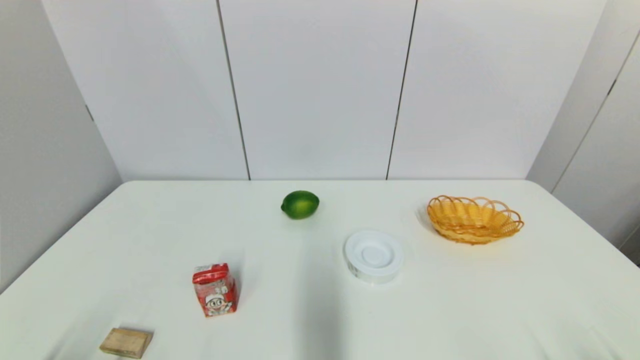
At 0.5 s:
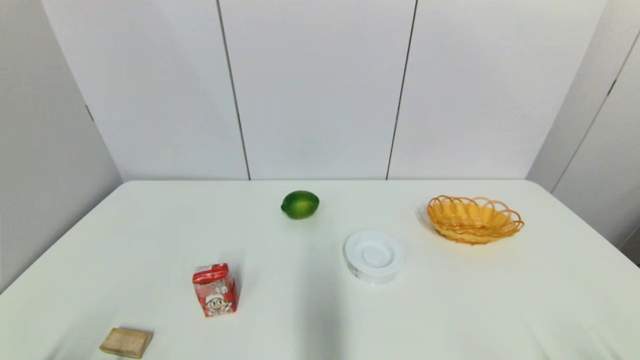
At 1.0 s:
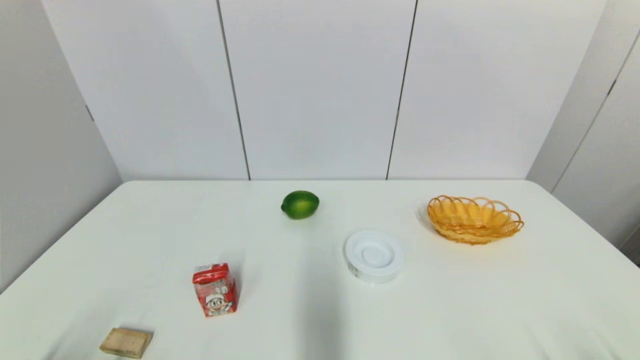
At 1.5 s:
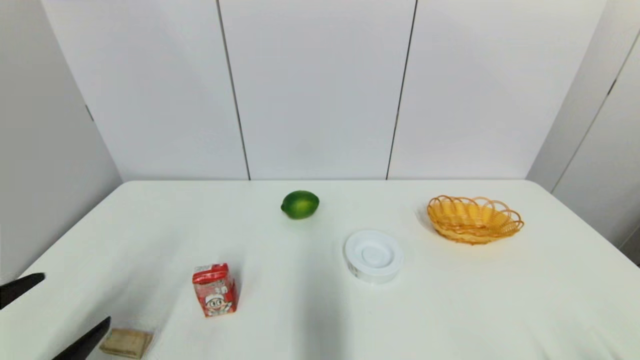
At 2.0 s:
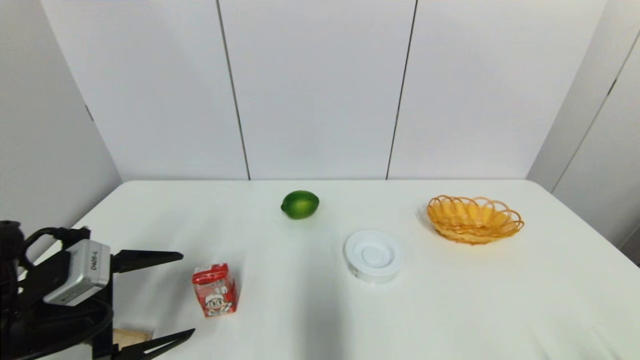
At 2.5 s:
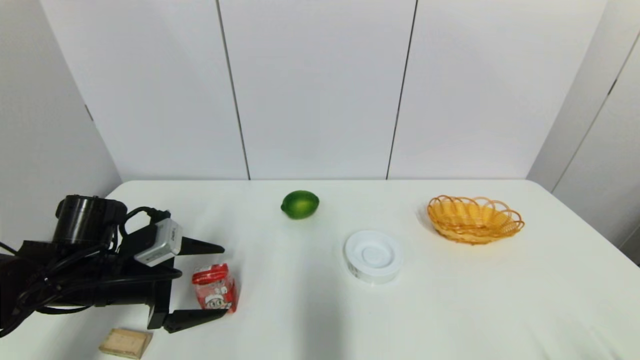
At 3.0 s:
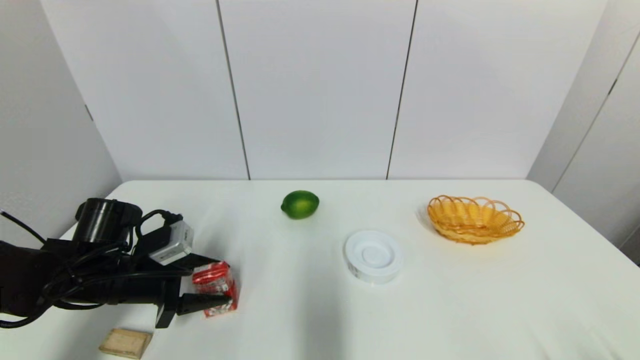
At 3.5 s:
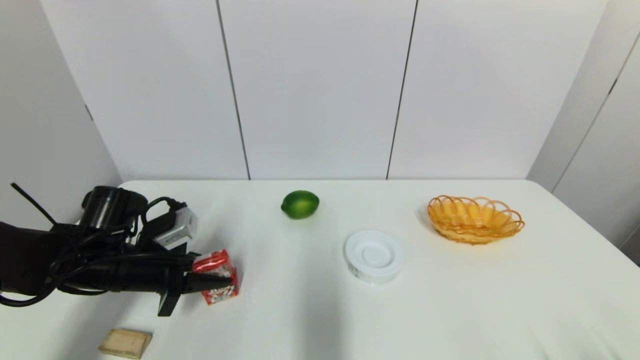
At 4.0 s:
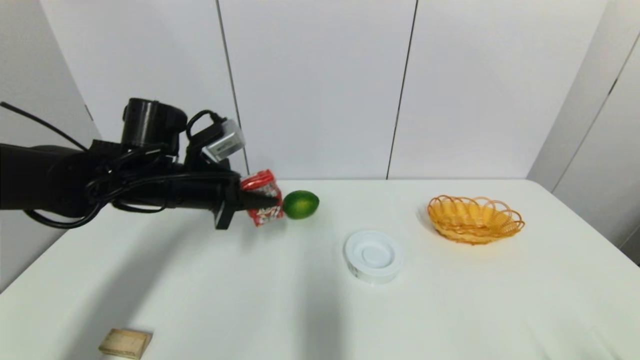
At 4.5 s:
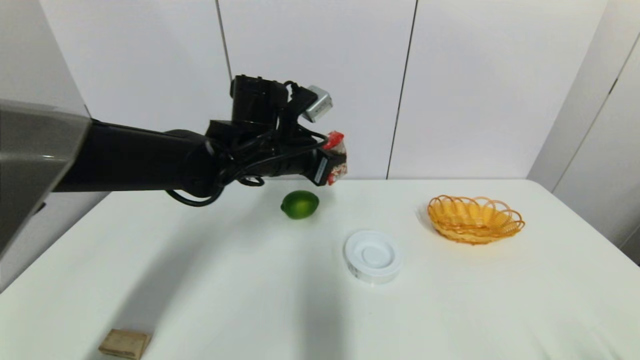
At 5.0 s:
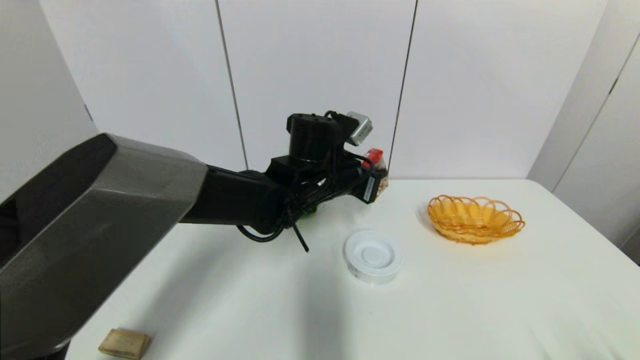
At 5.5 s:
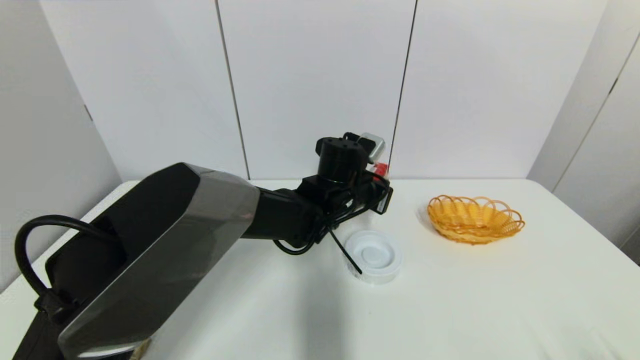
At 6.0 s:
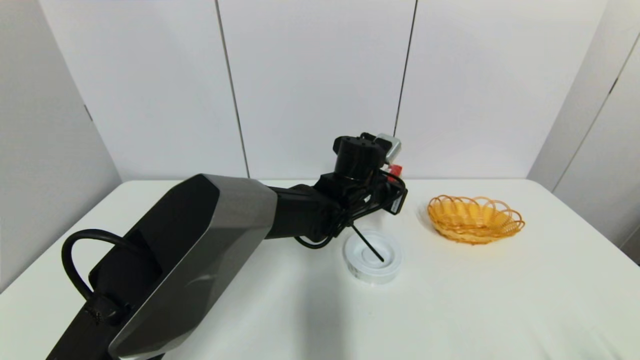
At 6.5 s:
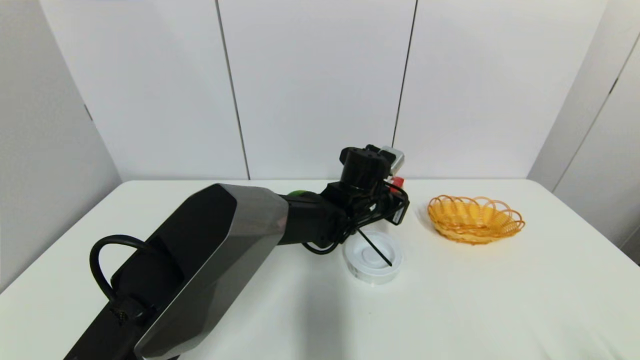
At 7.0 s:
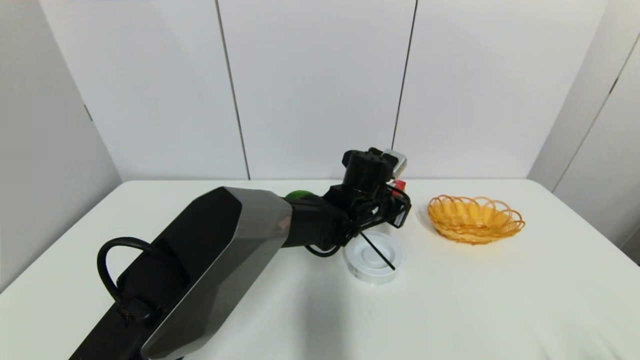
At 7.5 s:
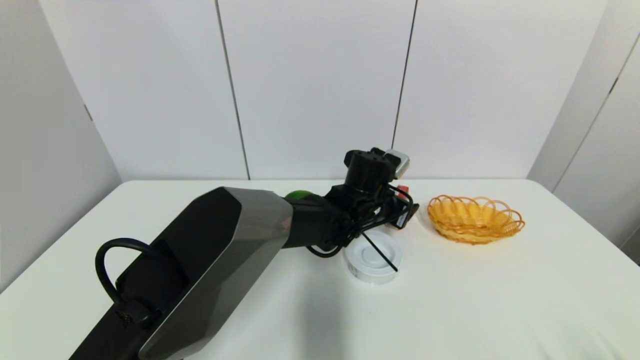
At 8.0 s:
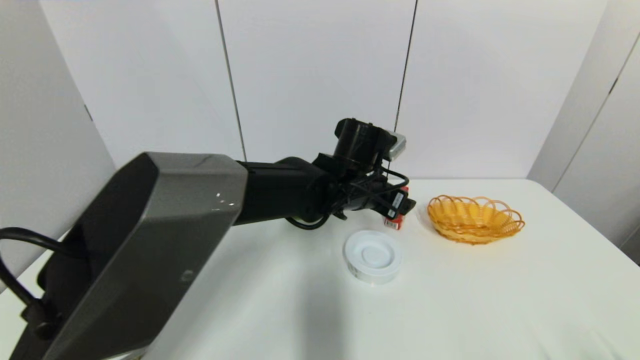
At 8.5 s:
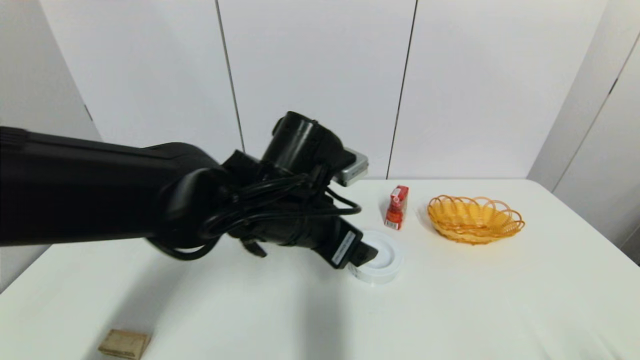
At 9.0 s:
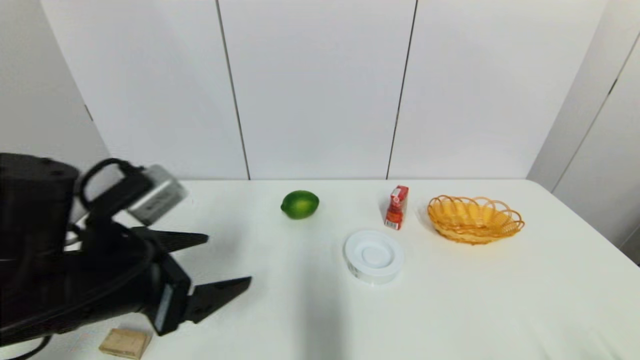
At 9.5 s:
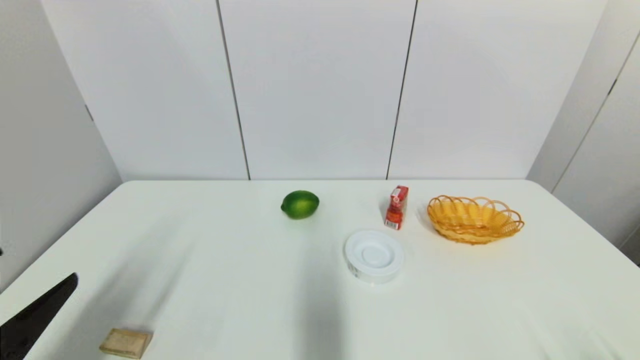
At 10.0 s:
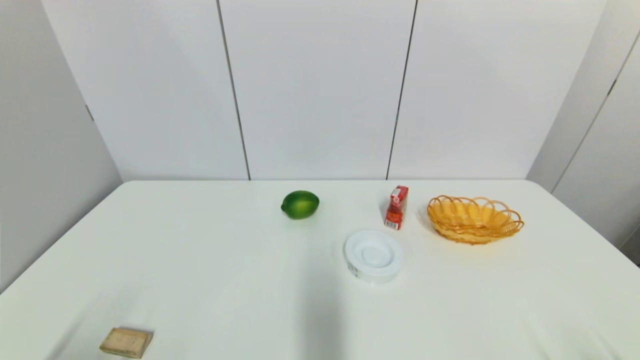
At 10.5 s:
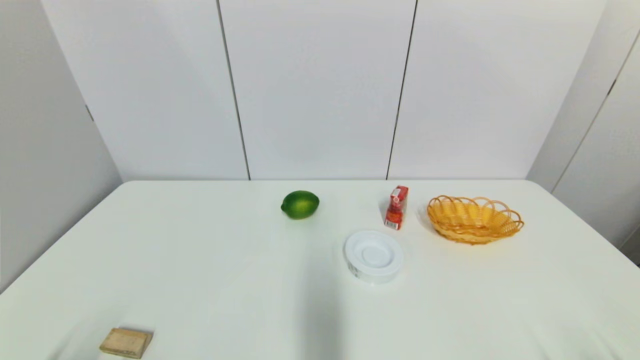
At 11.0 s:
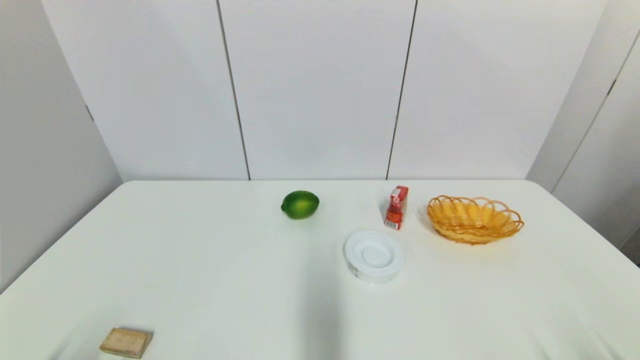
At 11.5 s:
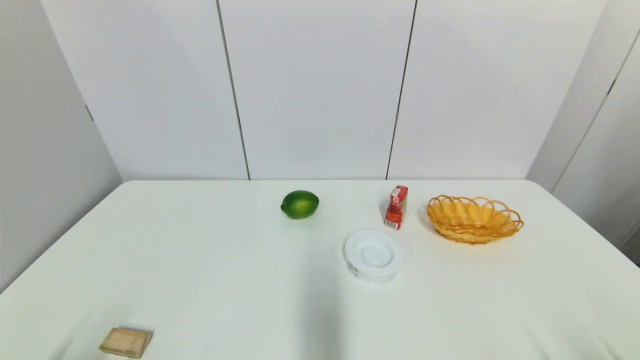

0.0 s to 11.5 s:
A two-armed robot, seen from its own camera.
Step, 1.5 to 3.0 s: Grasp the wangzai milk with left gripper.
Step, 3.5 to 7.0 s: Place the wangzai milk on the table with left gripper.
0.0 to 2.0 s: The left gripper goes roughly 20 cm forward.
2.0 to 4.0 s: The left gripper goes approximately 20 cm forward, to the right and upward, and closes its fingers.
4.0 to 6.0 s: The left gripper is displaced to the right by some 25 cm.
6.0 to 7.5 s: The left gripper opens.
7.5 to 9.5 s: The left gripper travels to the left and backward by some 50 cm.
9.5 to 11.5 s: The left gripper goes about 15 cm downward and backward.

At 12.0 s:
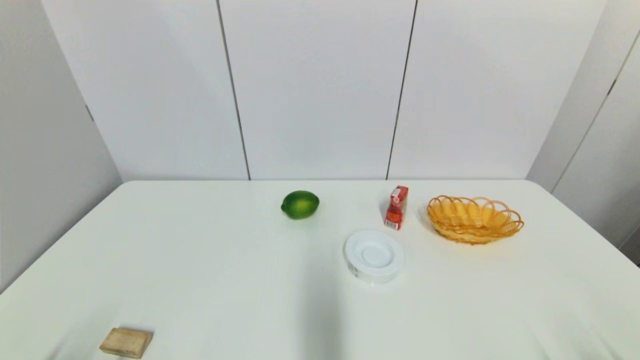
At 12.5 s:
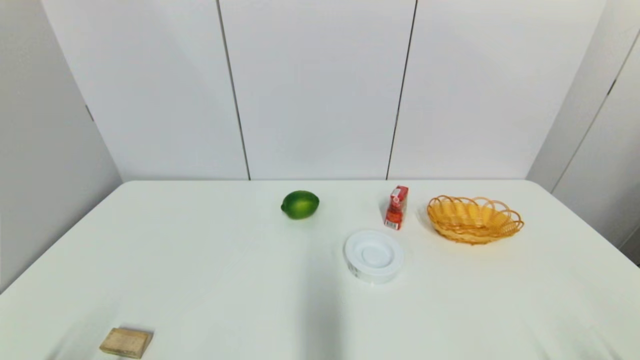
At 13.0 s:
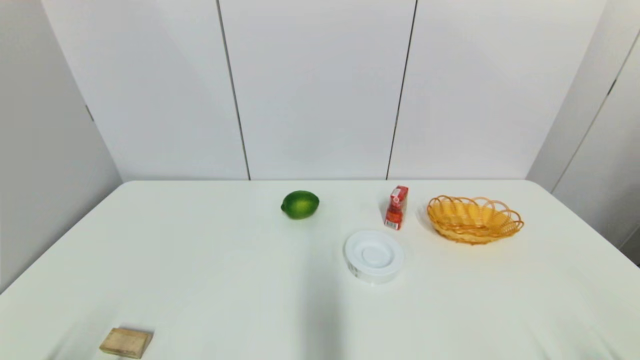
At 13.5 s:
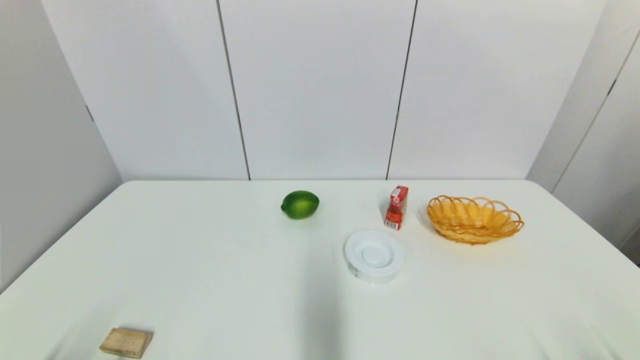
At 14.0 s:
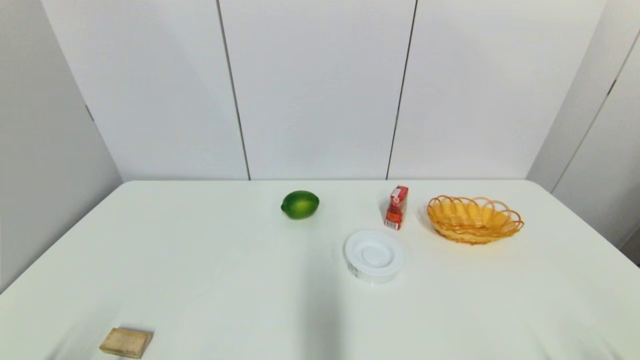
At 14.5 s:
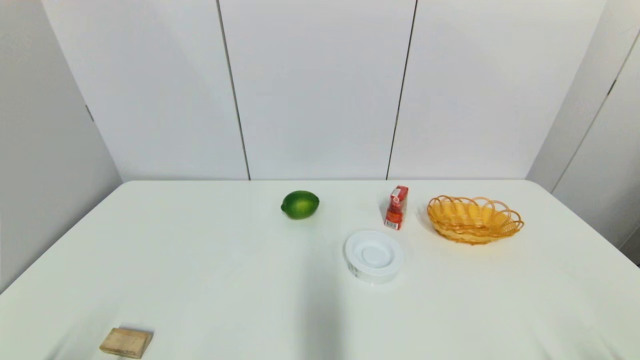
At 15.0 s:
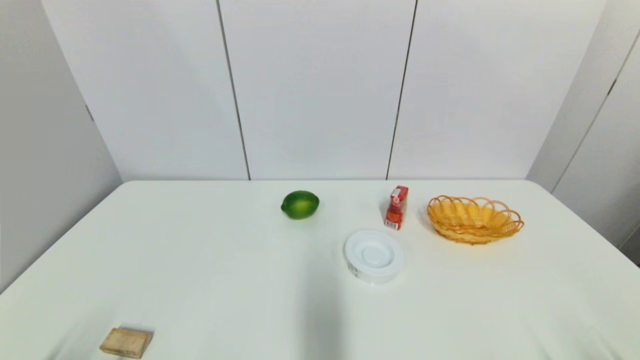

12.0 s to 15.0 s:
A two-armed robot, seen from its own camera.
12.0 to 15.0 s: The two grippers keep their place.

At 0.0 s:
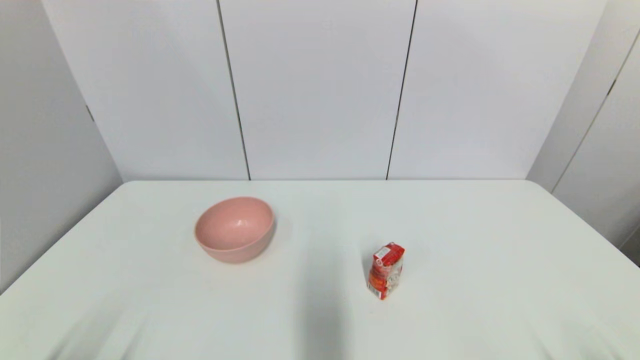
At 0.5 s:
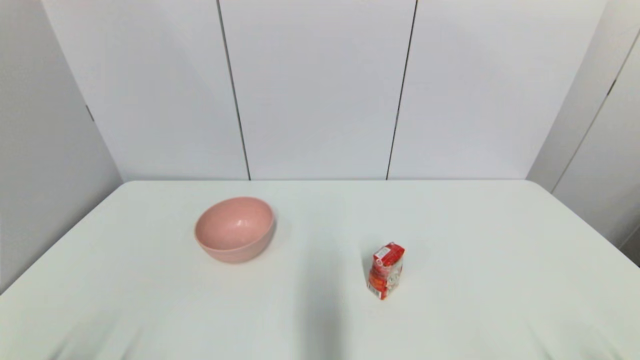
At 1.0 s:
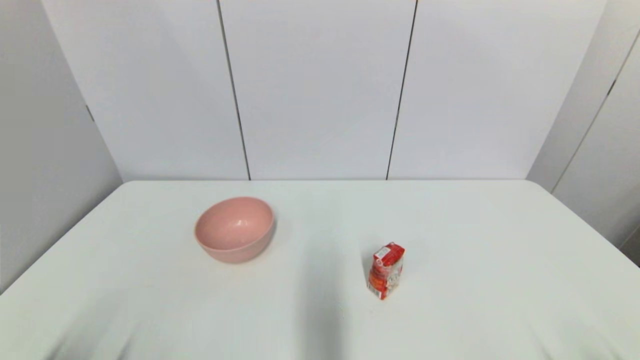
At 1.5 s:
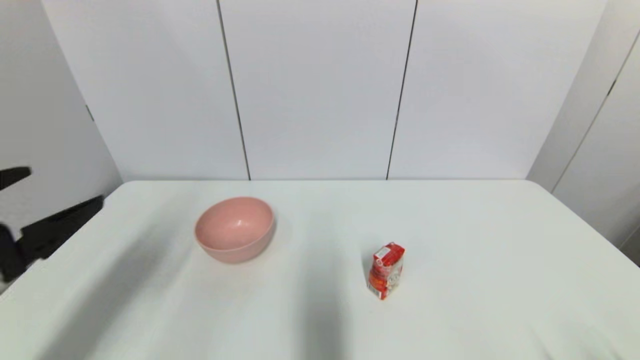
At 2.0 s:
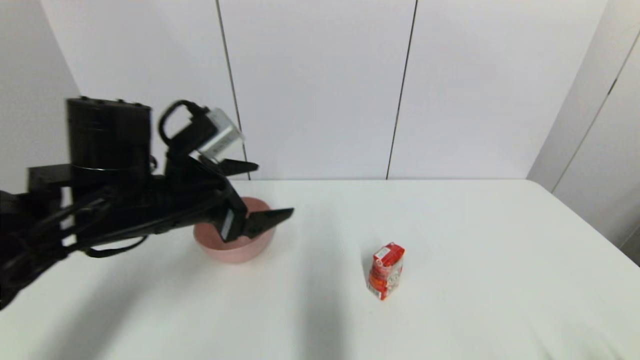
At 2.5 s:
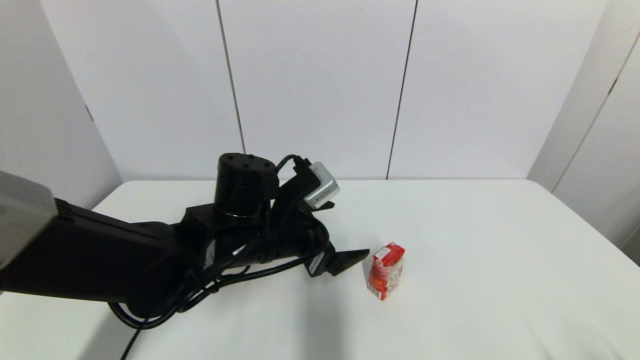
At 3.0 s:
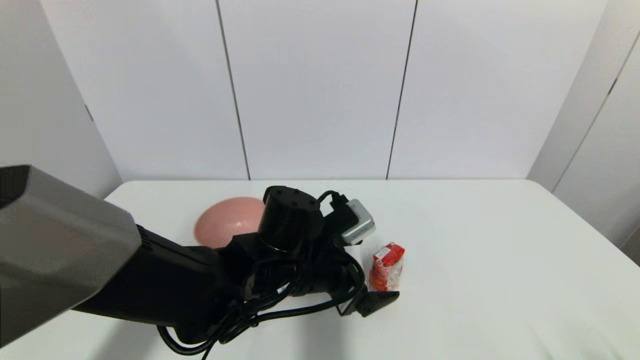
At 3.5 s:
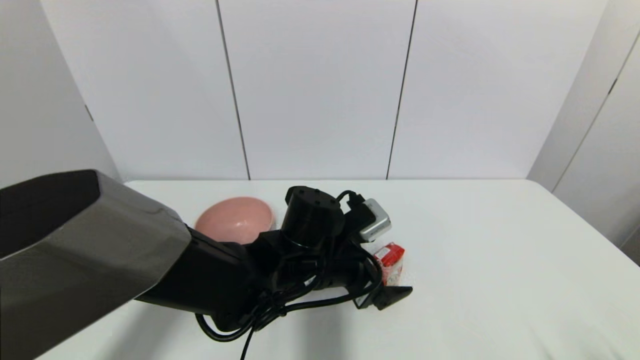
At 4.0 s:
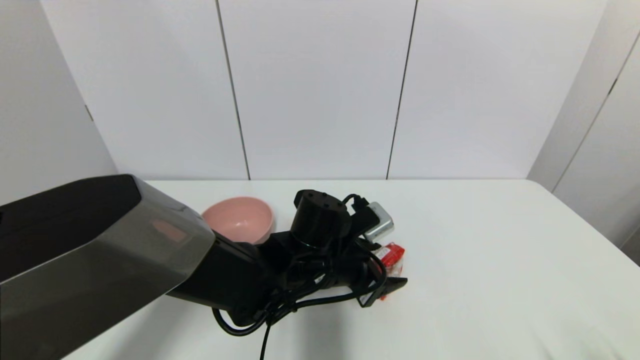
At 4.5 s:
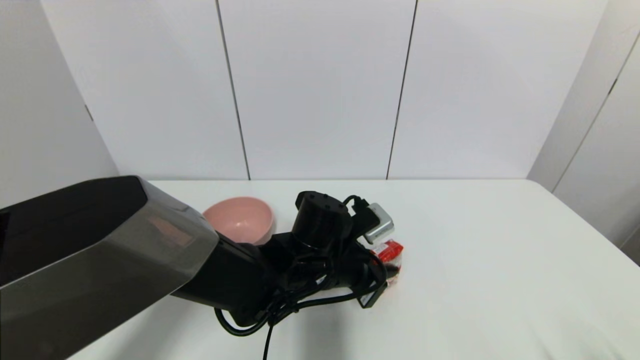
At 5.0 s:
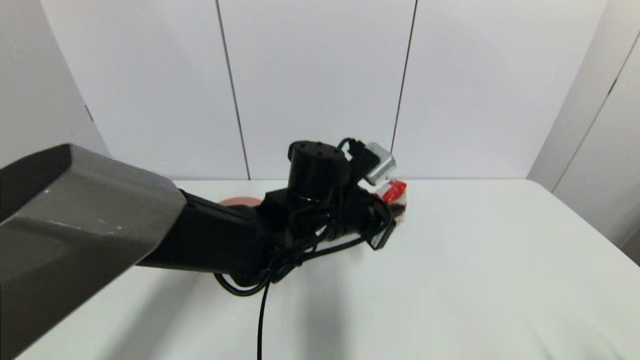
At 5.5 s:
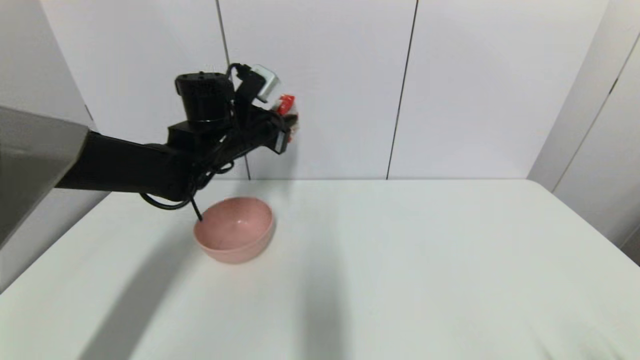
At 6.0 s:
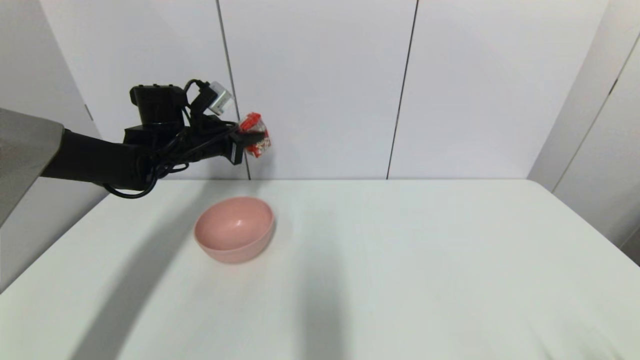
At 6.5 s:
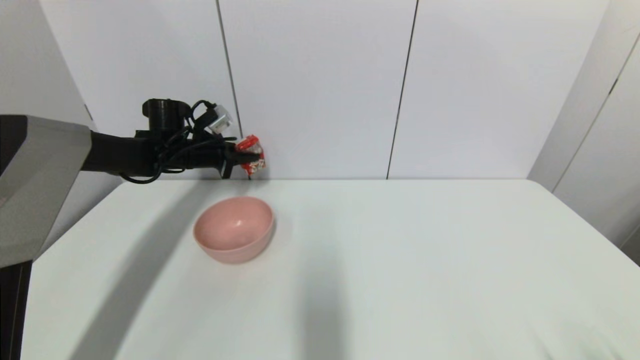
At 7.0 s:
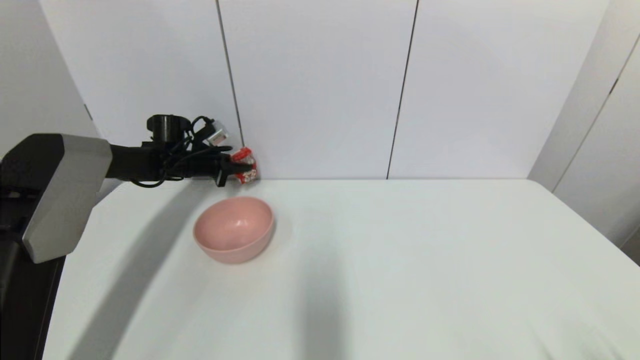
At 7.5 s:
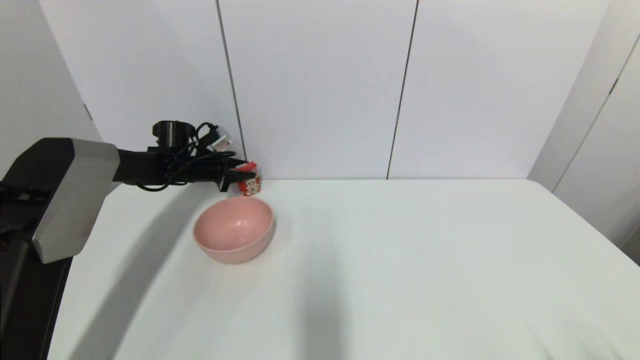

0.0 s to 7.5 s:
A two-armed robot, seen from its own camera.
Step, 1.5 to 4.5 s: Grasp the wangzai milk with left gripper.
0.0 to 2.0 s: The left gripper shifts roughly 35 cm forward, upward and to the right.
2.0 to 4.0 s: The left gripper travels to the right and downward by some 20 cm, and closes.
4.0 to 5.5 s: The left gripper heads upward, to the left and forward, covering about 20 cm, and closes.
5.5 to 7.5 s: The left gripper is displaced to the left, forward and downward by approximately 20 cm.
